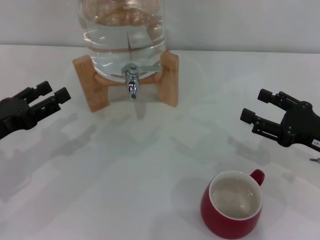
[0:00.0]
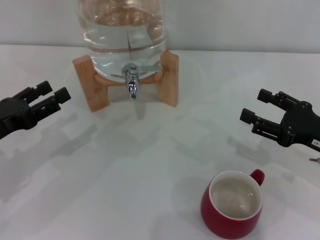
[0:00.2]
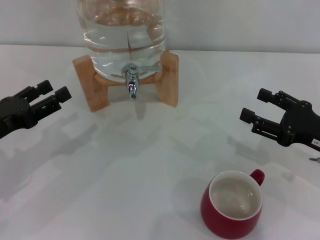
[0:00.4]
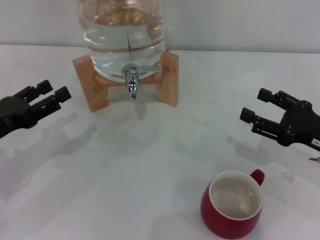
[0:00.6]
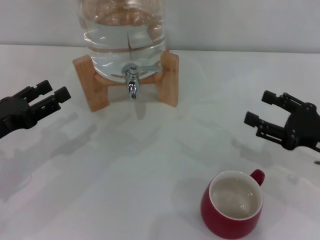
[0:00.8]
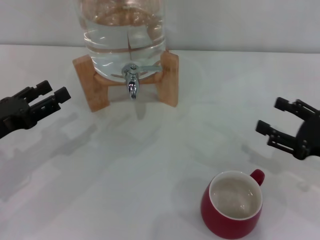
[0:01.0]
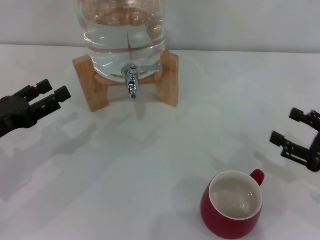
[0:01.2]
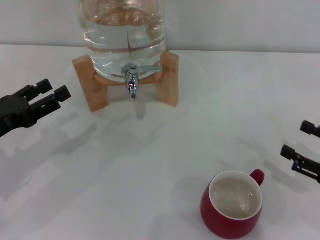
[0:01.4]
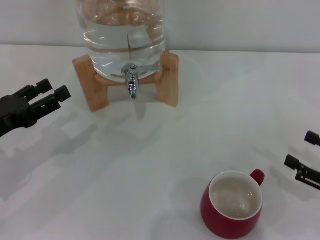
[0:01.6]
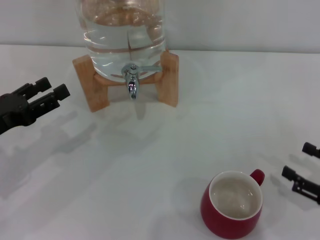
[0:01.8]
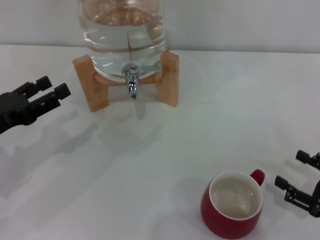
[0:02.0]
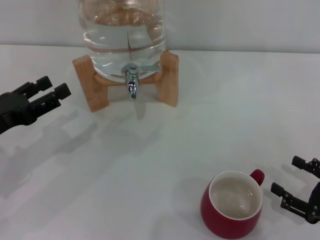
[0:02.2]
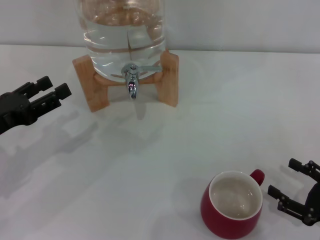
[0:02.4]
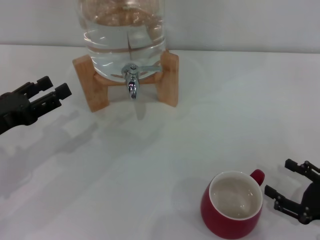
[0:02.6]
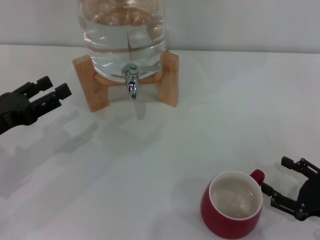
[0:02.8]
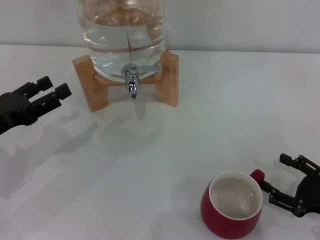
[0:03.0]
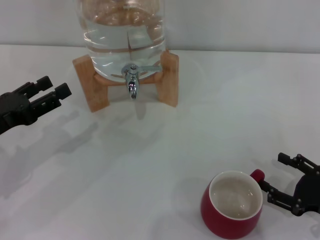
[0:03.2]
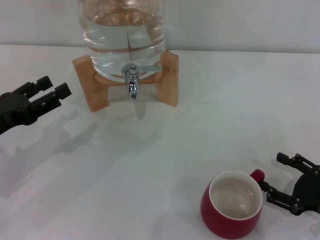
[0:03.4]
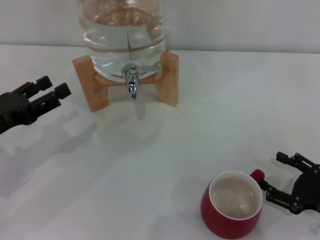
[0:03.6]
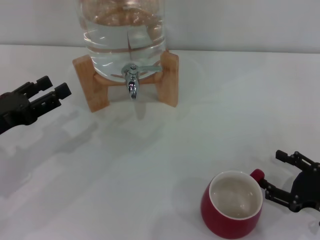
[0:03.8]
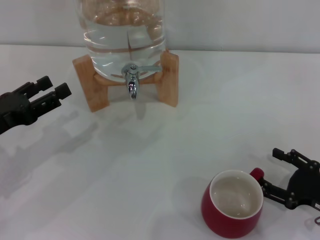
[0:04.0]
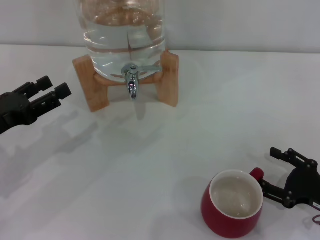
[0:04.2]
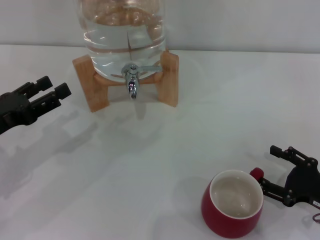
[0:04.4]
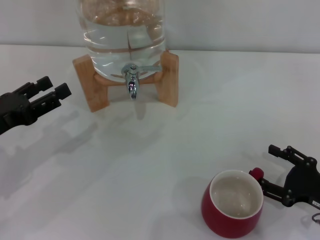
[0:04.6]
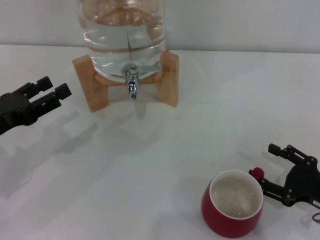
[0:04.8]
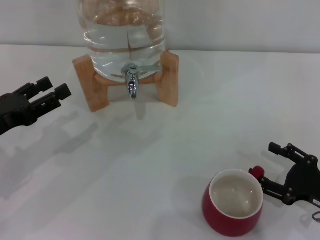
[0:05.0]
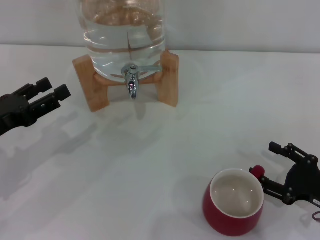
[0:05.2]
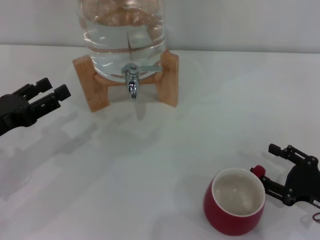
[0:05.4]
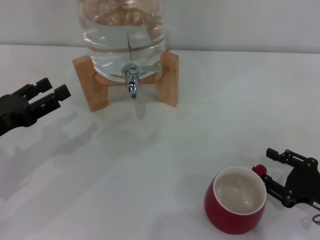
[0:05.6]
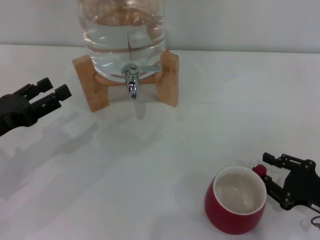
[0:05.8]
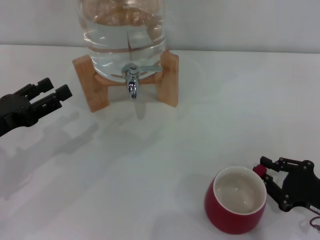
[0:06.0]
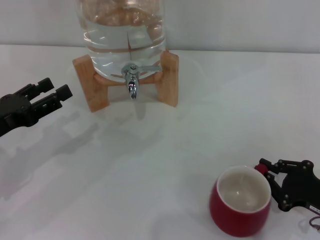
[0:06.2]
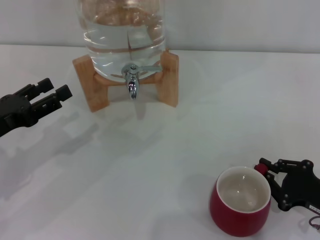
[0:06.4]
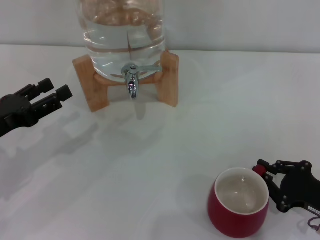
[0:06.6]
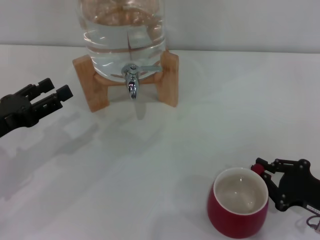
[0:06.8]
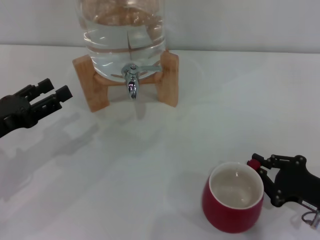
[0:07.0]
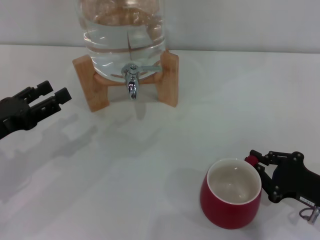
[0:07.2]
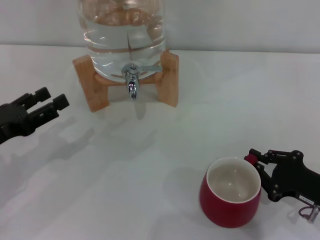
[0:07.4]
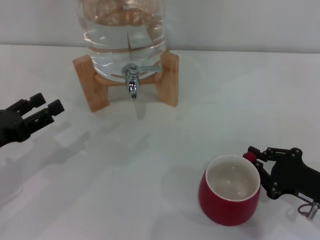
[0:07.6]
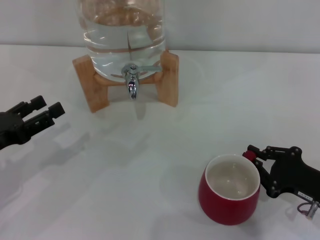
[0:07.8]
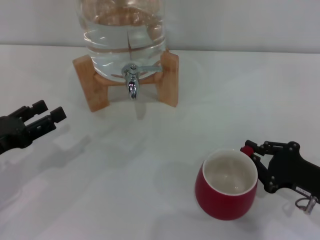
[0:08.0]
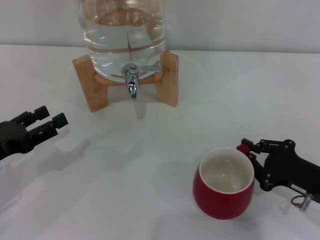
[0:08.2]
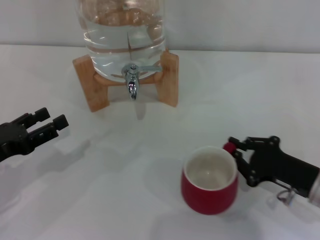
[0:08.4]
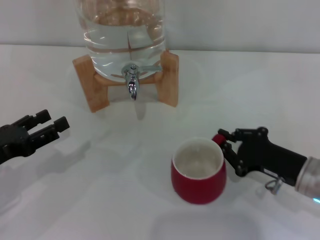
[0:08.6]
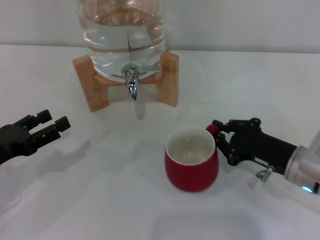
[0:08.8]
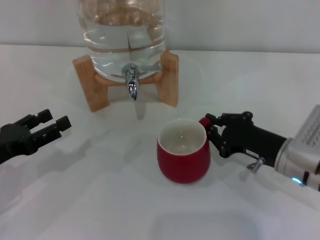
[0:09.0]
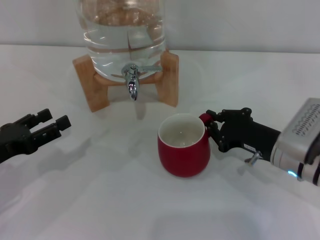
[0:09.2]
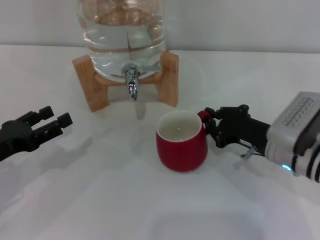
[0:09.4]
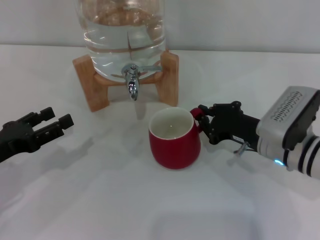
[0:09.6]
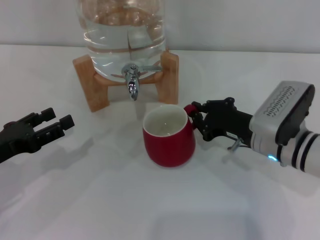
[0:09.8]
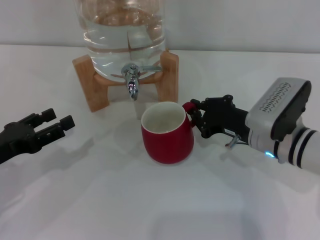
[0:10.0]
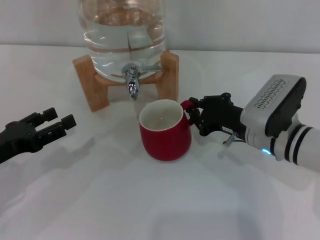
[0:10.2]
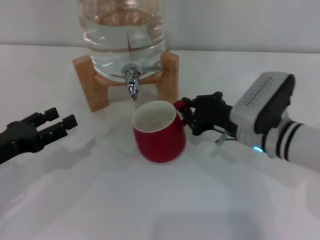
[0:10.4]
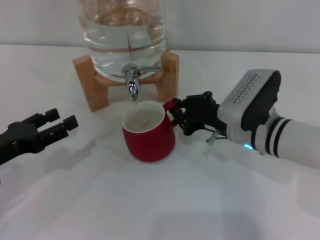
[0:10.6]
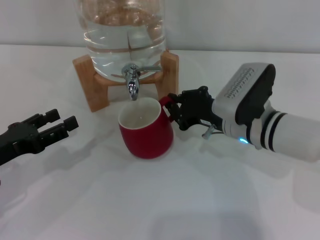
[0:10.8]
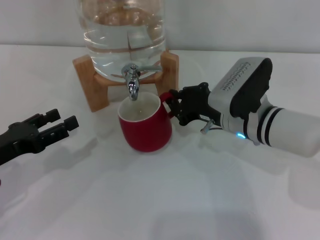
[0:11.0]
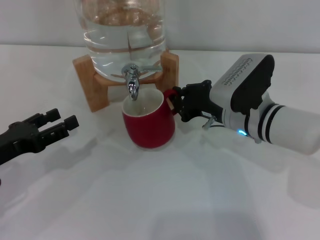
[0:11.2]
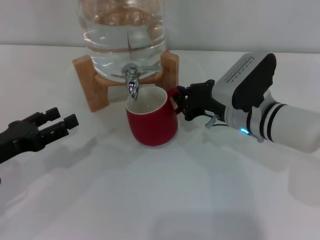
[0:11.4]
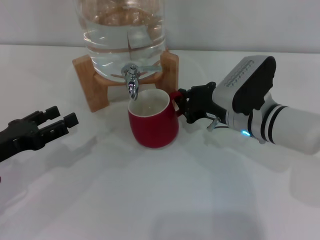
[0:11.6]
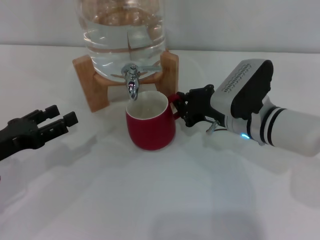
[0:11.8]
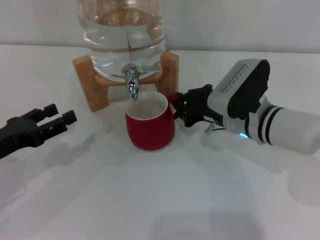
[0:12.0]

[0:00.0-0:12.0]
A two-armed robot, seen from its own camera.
Task of the whole recording: the right gripper pick up the red cup and place it horizontally under the faucet, the left gripper turn on the faucet to fill the cup, and then turn off the faucet.
0:00.0 to 0:01.6: The right gripper travels backward and to the right by approximately 10 cm.
0:01.6 to 0:04.4: The grippers move only a little.
0:04.4 to 0:06.0: The right gripper closes.
0:06.0 to 0:07.6: The right gripper closes up.
0:07.6 to 0:09.0: The right gripper moves to the left and forward, approximately 10 cm.
0:09.0 to 0:10.4: The right gripper shifts about 5 cm to the left.
0:10.4 to 0:12.0: There are only small adjustments of the grippers.

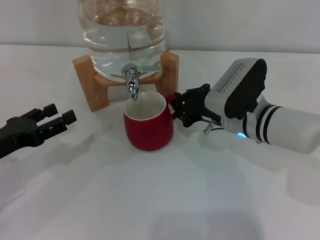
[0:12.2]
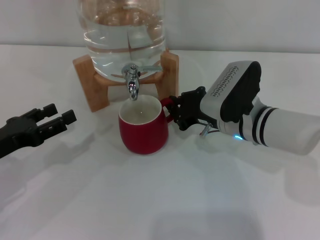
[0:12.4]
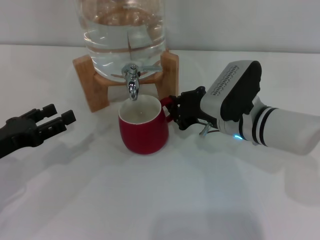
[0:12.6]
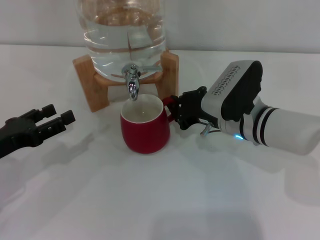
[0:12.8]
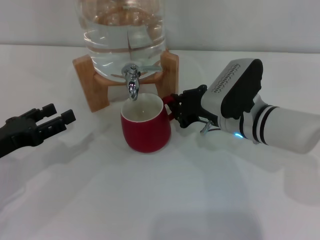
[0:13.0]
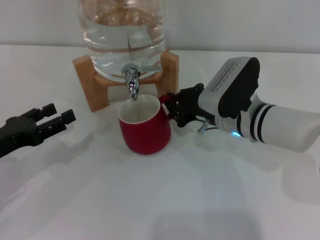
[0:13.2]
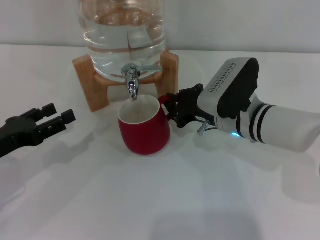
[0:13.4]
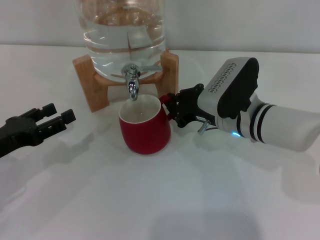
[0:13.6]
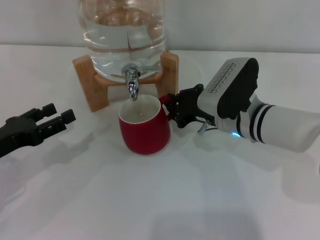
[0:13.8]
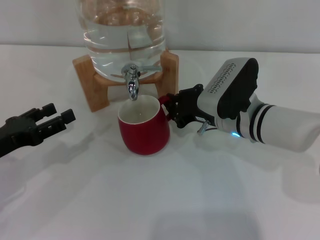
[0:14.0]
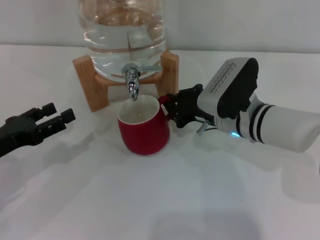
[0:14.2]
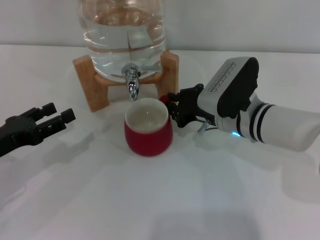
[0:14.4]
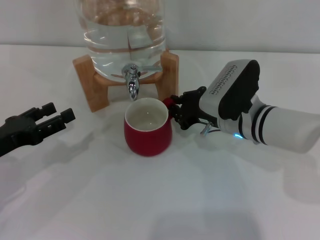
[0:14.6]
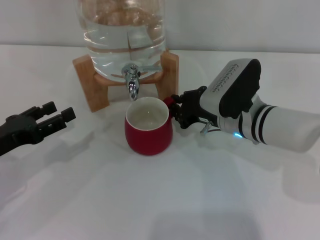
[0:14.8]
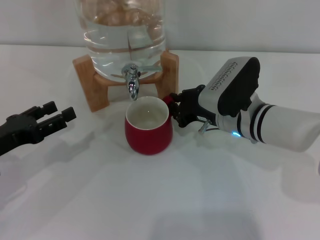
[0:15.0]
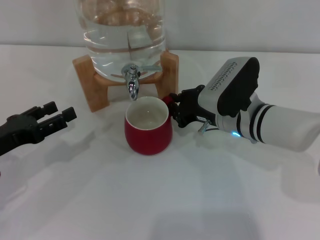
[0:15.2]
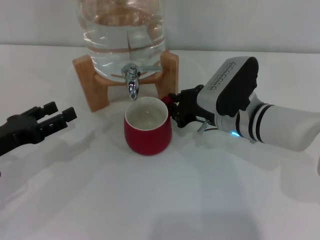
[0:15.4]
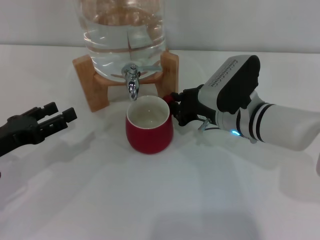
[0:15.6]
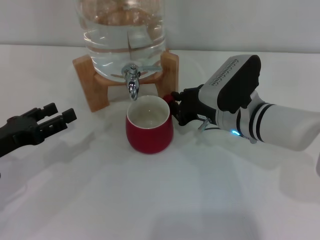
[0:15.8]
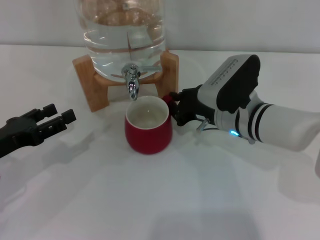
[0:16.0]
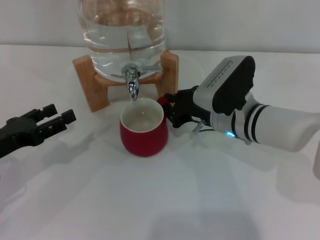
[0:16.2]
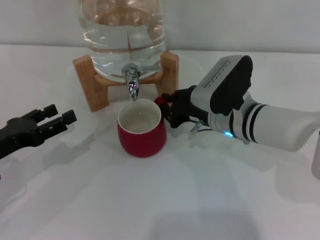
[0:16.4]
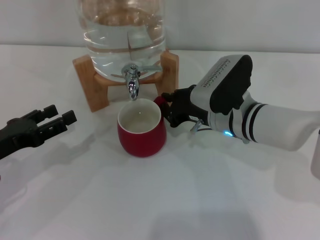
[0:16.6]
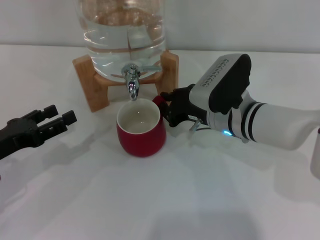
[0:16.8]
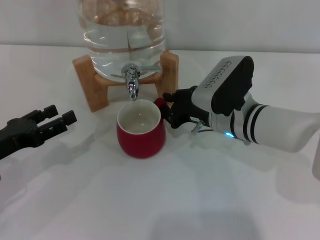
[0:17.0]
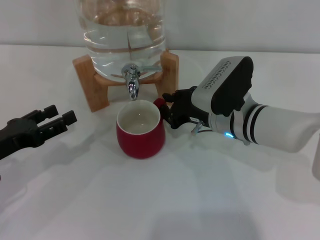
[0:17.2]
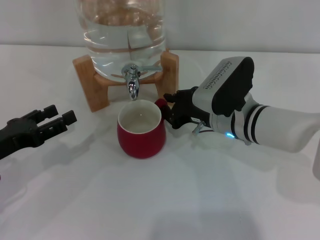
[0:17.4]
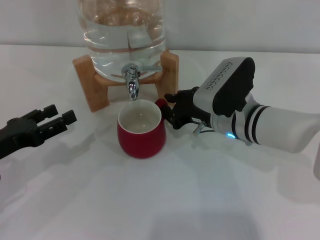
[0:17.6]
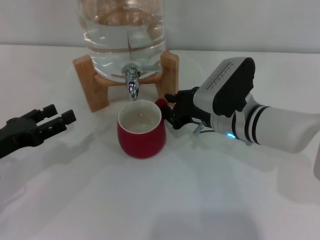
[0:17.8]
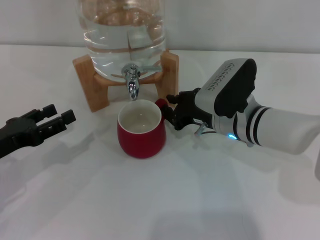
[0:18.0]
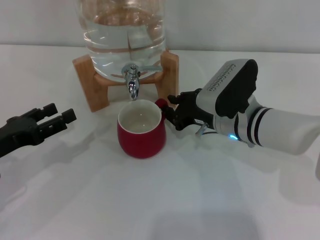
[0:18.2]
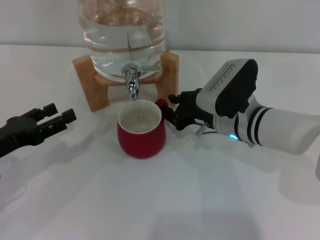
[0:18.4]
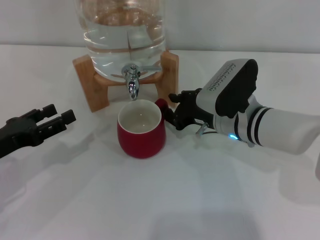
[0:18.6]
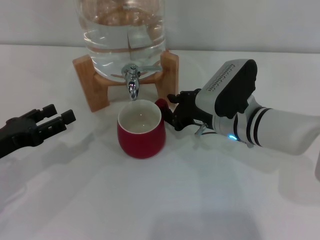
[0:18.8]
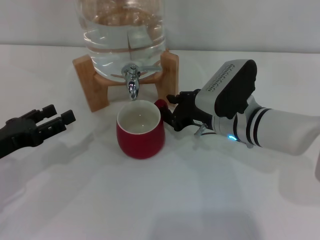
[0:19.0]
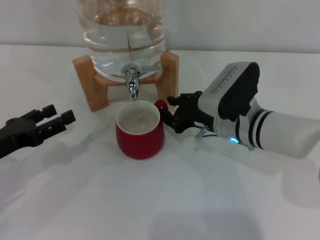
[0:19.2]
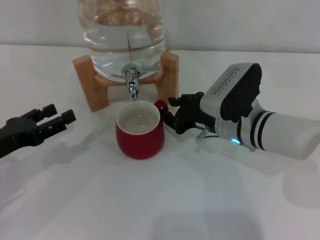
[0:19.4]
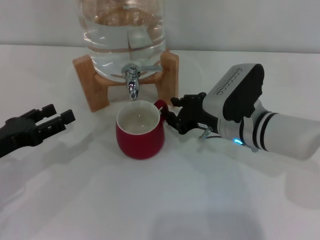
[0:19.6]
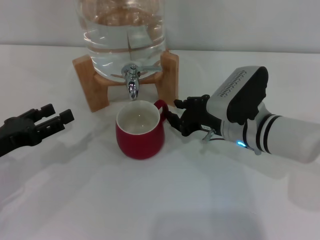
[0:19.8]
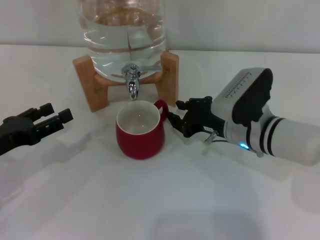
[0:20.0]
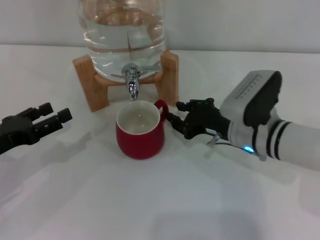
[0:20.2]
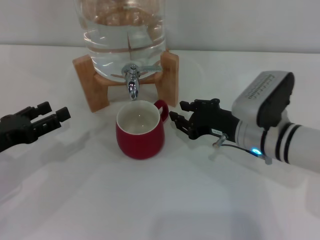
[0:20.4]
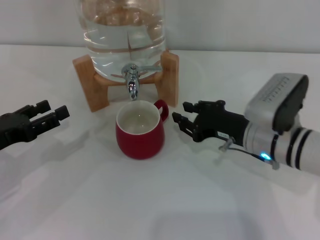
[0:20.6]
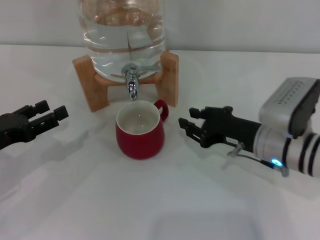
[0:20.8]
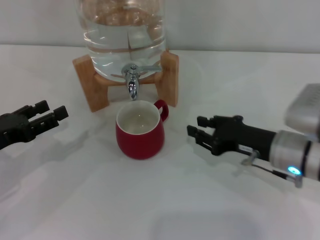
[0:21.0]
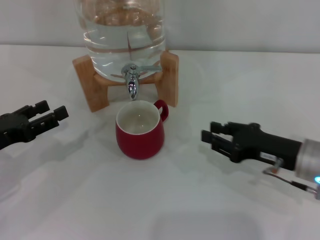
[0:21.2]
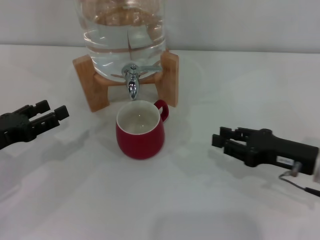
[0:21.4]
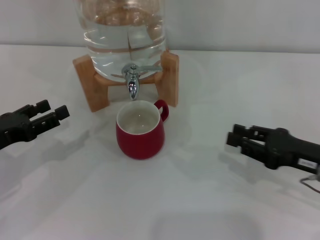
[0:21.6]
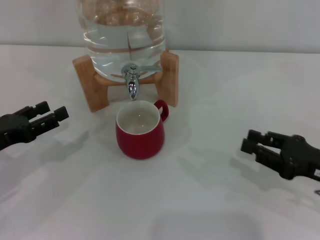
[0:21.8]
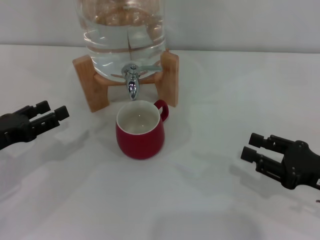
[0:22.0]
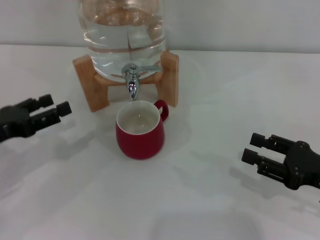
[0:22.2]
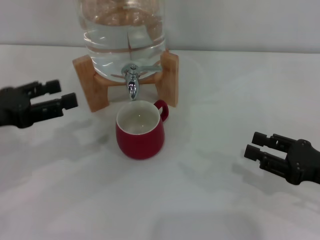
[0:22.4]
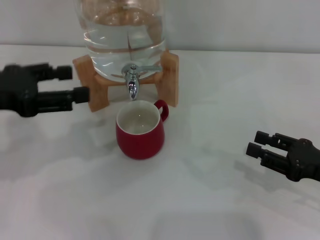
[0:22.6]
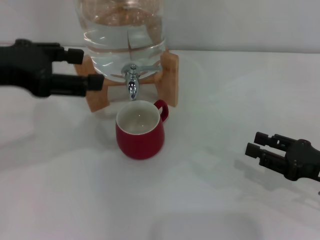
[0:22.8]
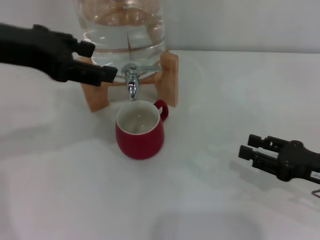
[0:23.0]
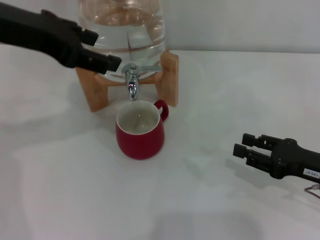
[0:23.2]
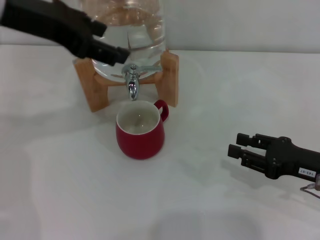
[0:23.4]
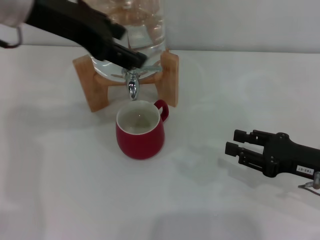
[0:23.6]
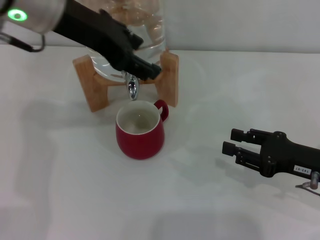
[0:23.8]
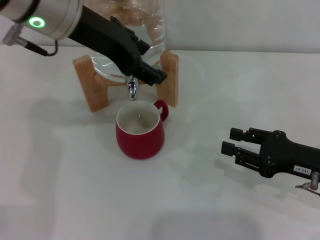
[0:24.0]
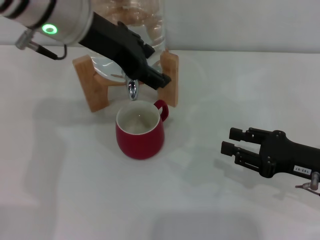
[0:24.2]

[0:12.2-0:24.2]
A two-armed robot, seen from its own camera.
Task of the whole recording: the right gripper pick up the red cup and place it horizontally under the faucet, the left gripper turn on the faucet to fill the cup, and then turn off the faucet.
Step, 0:12.2 to 0:20.4: Move the cup beneath the water dispenser nozzle with the right gripper.
0:12.2 to 0:15.2: The two grippers keep their place.
0:15.2 to 0:16.6: Neither gripper changes place.
0:16.6 to 0:18.2: Both grippers stay about where they are.
0:18.2 to 0:19.8: The grippers make only small movements.
0:19.8 to 0:21.2: The right gripper goes roughly 10 cm to the right and backward.
0:21.2 to 0:22.6: The left gripper is displaced upward by approximately 15 cm, while the right gripper moves to the right, some 5 cm.
0:22.6 to 0:24.2: The left gripper heads to the right and forward, covering some 20 cm.
